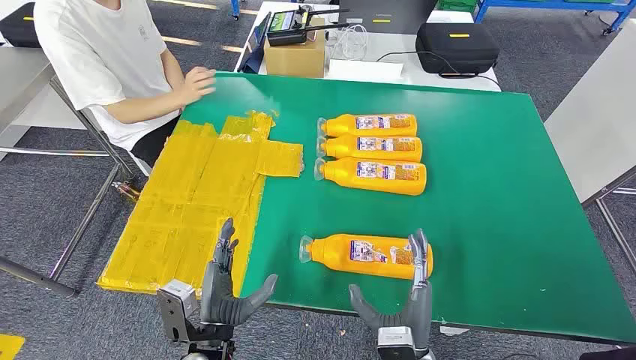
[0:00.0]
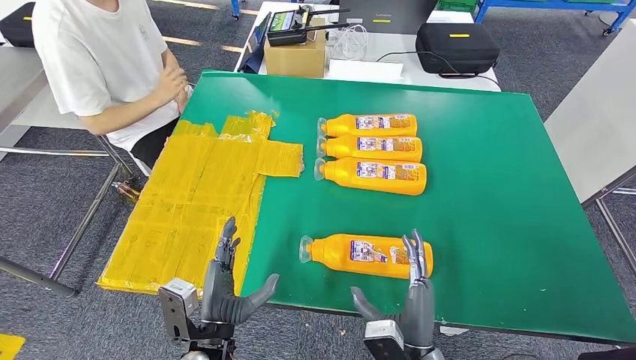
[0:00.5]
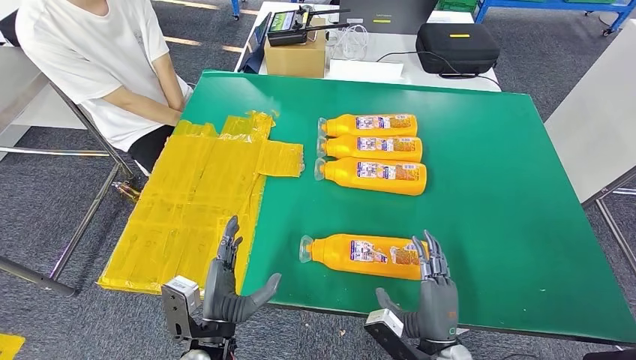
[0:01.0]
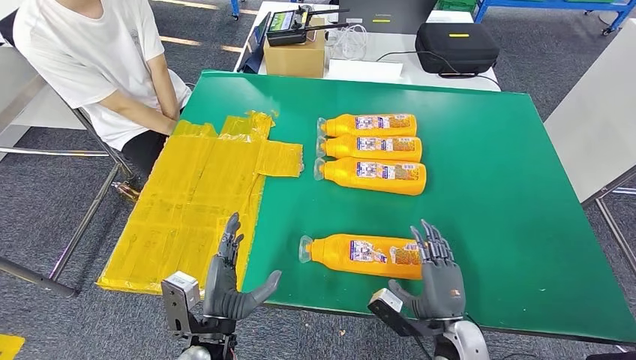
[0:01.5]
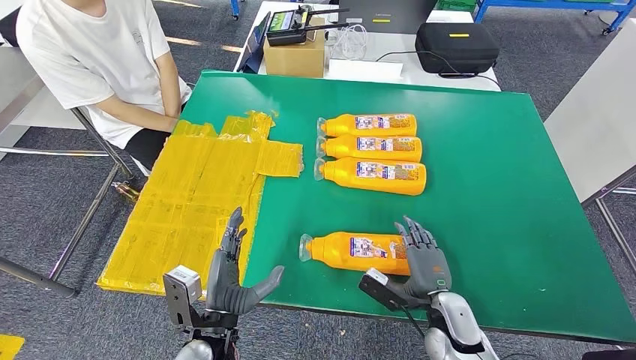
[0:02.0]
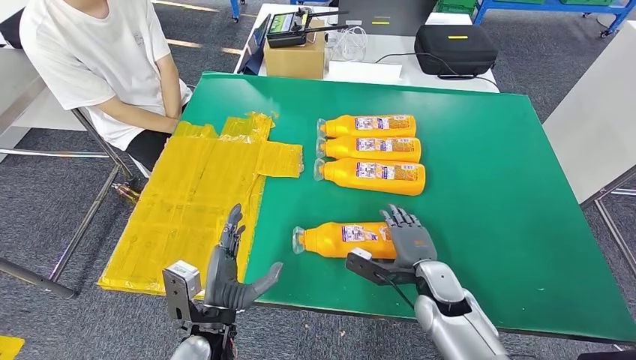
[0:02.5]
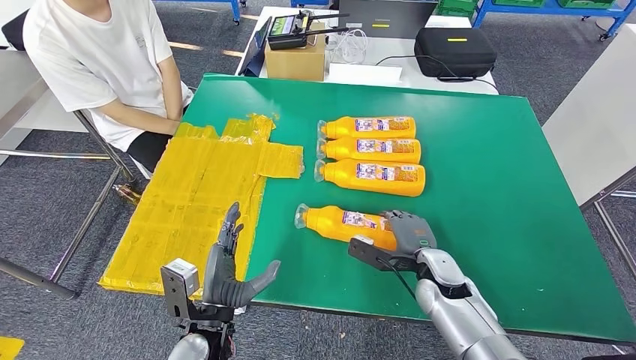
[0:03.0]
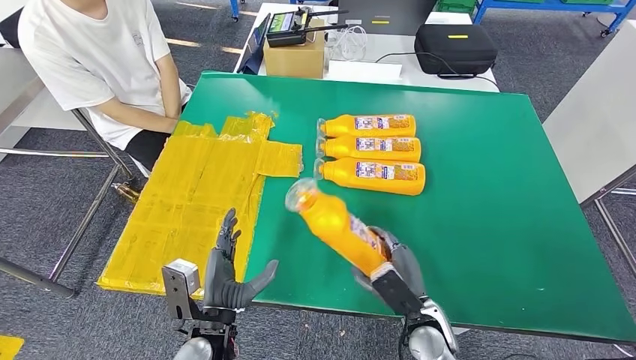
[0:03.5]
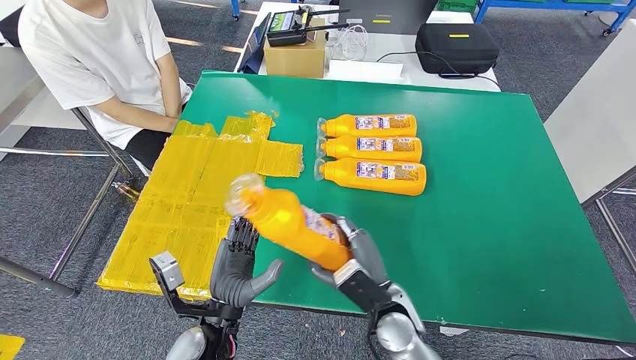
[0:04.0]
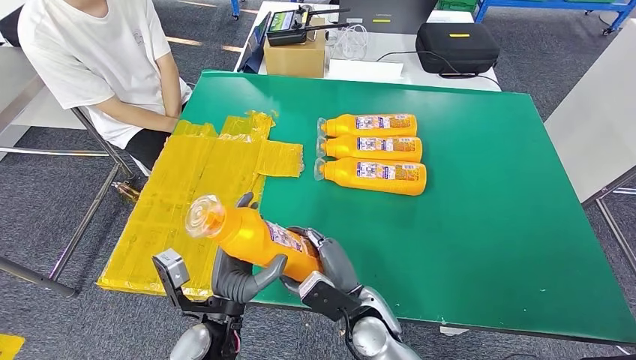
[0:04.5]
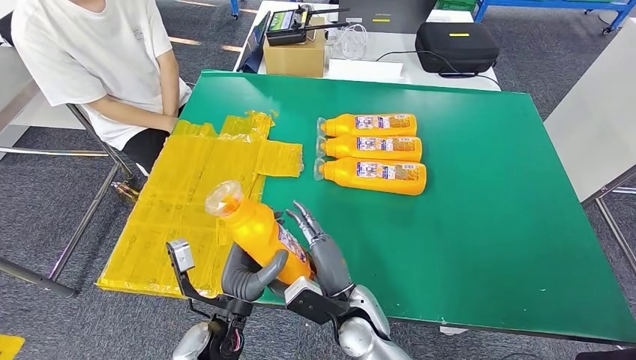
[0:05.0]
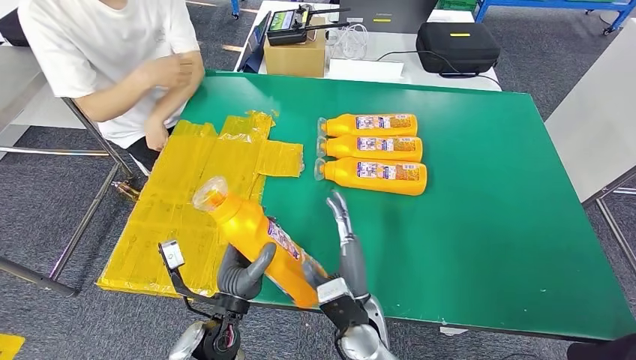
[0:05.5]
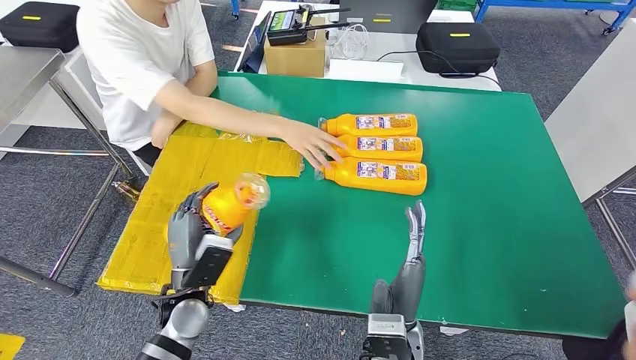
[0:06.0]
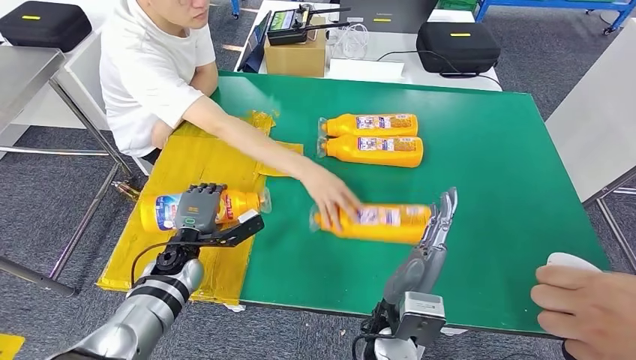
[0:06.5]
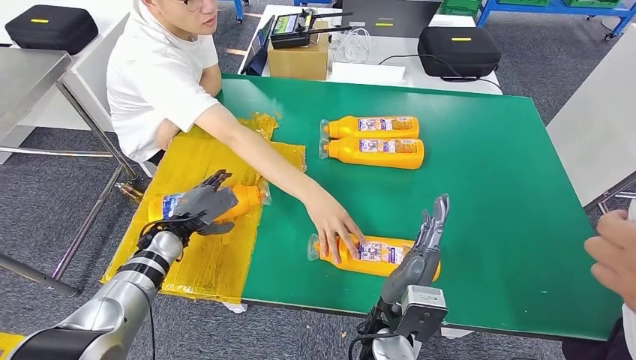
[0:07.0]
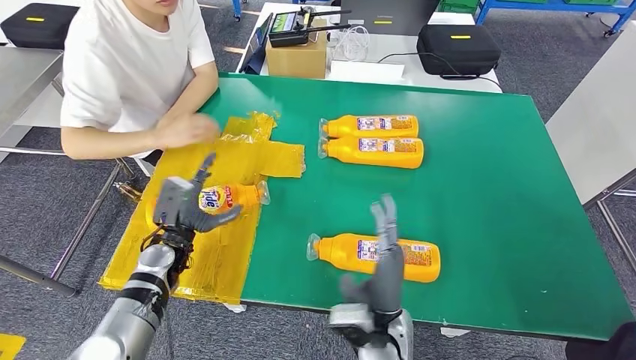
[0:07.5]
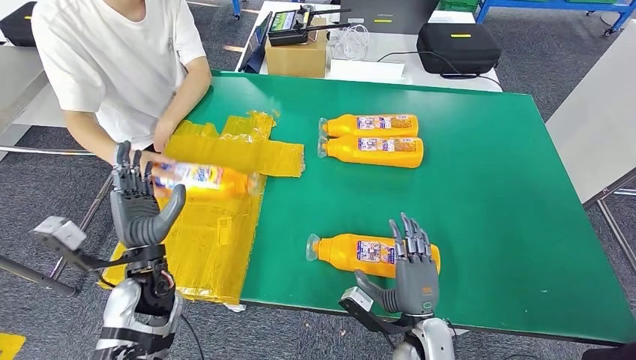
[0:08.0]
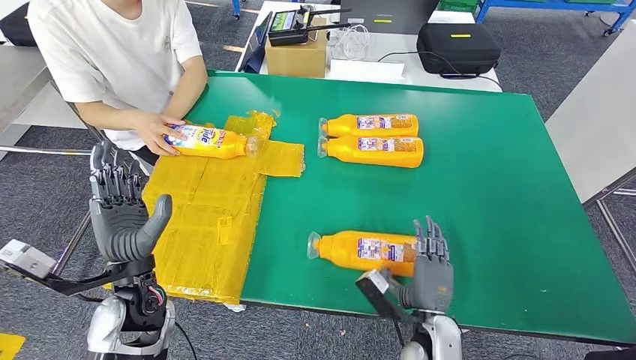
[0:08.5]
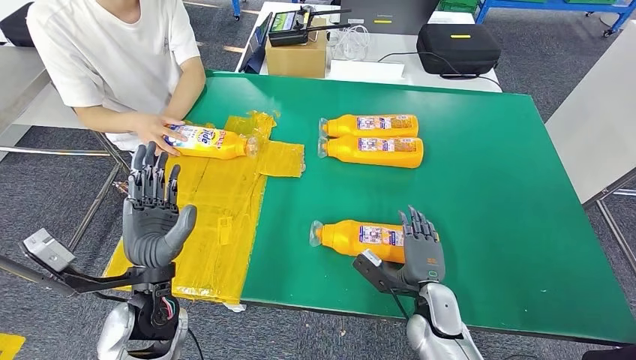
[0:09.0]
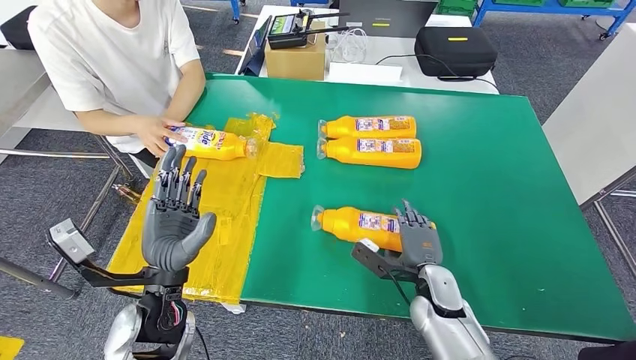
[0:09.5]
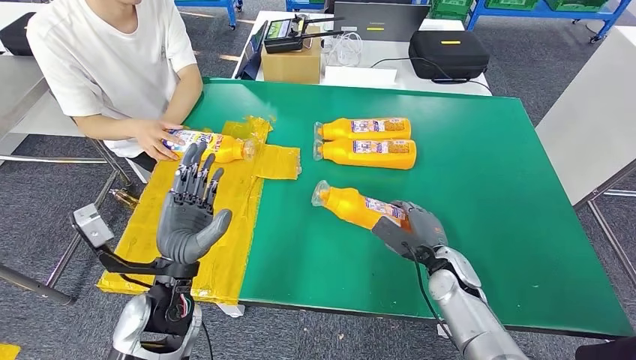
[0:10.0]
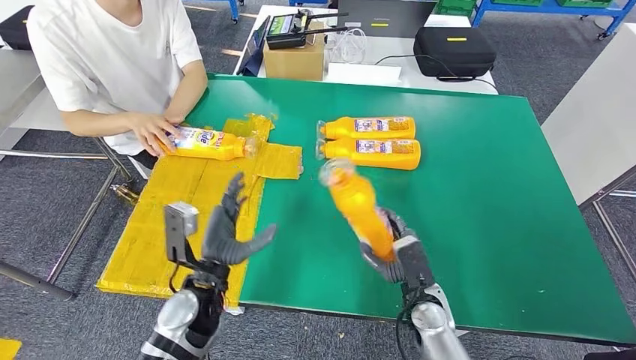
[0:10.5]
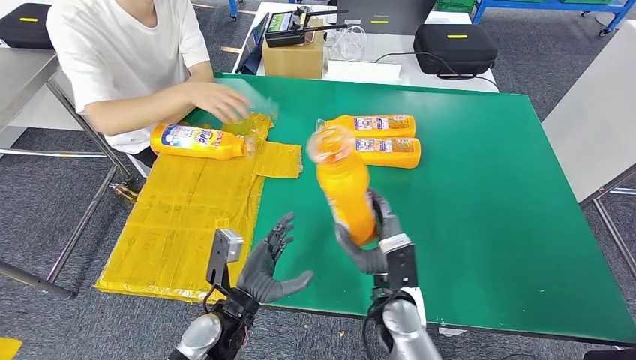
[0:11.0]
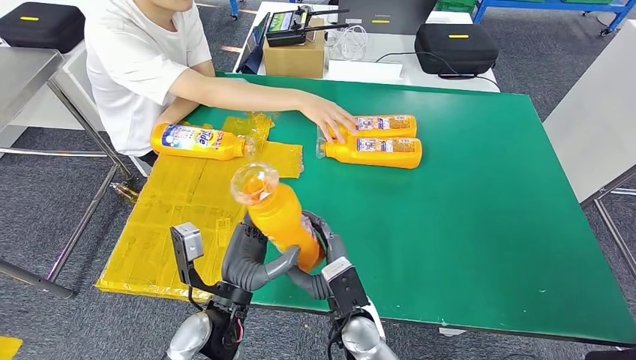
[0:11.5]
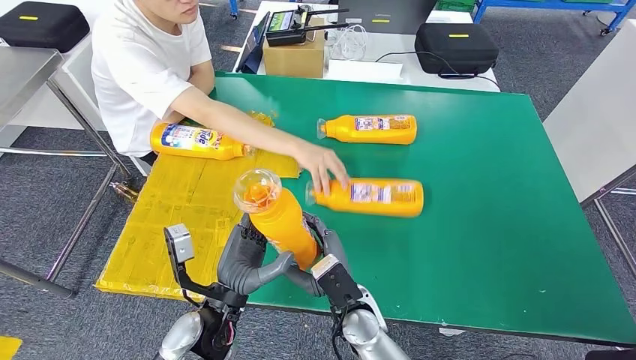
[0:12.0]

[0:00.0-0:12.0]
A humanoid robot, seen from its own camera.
Step, 0:00.0 to 0:03.5: Take the bottle from the table.
Step, 0:04.5 to 0:07.5: Flip the bottle to face forward.
Step, 0:08.5 to 0:10.5: Pick up the bottle from the table.
0:02.0 to 0:04.0: The right hand travels to the left by about 10 cm.

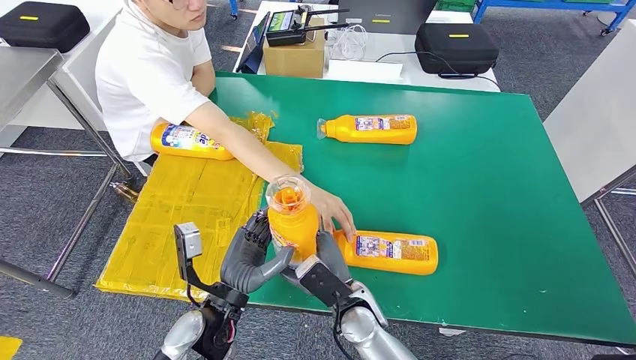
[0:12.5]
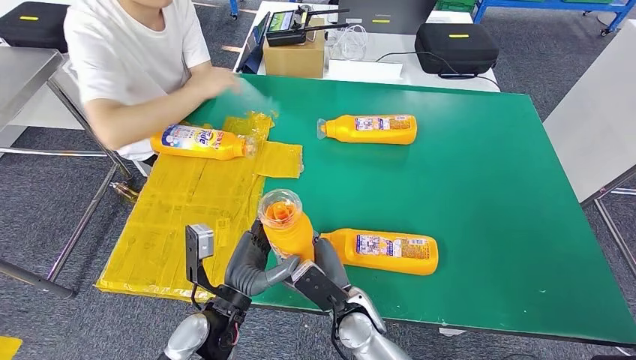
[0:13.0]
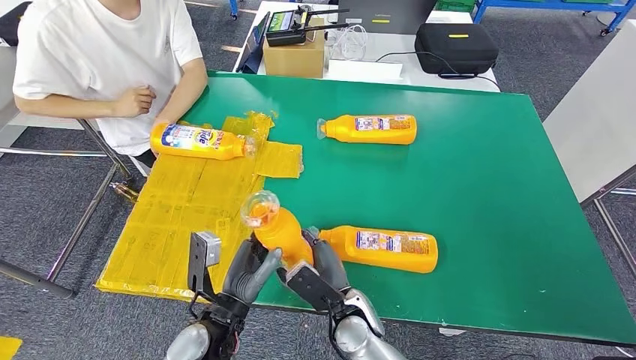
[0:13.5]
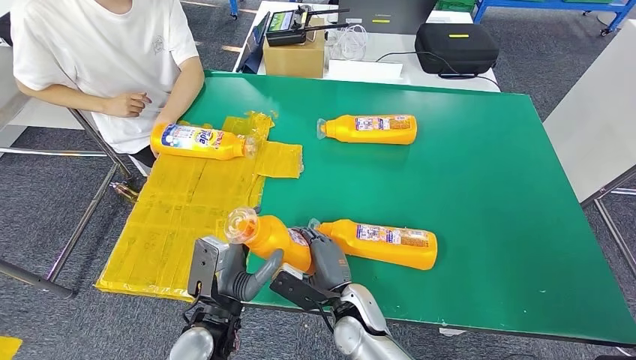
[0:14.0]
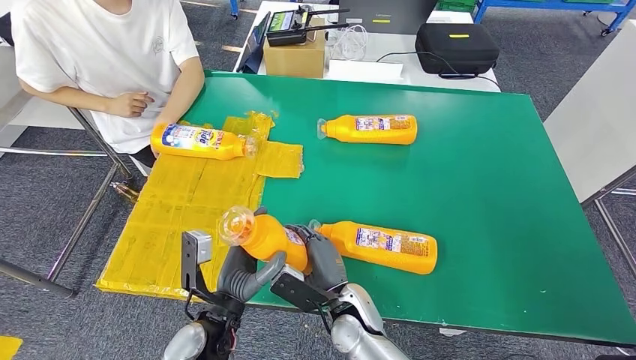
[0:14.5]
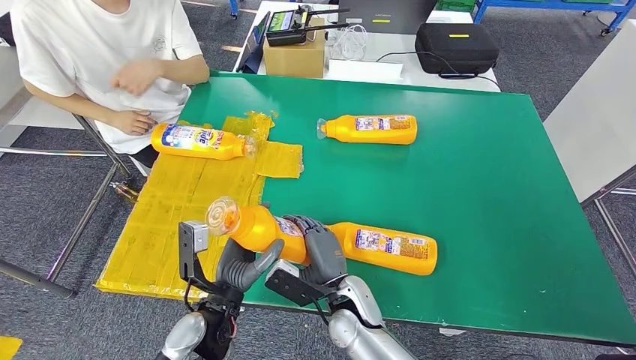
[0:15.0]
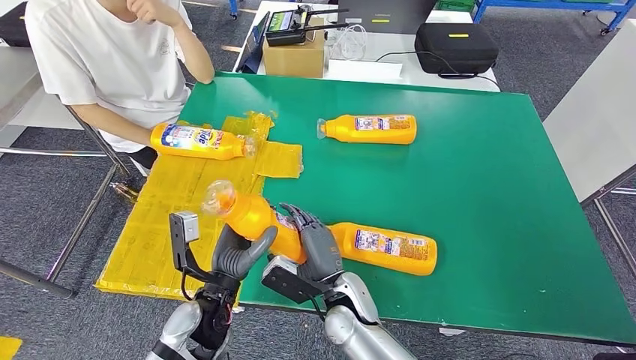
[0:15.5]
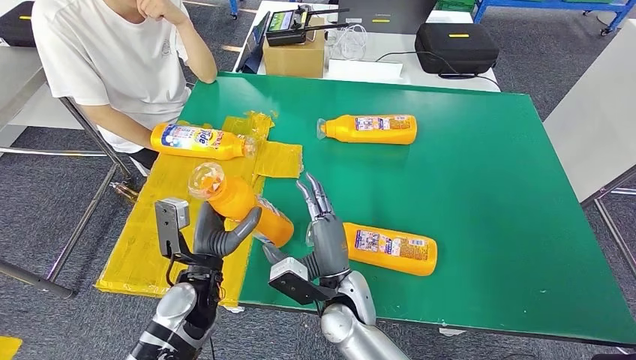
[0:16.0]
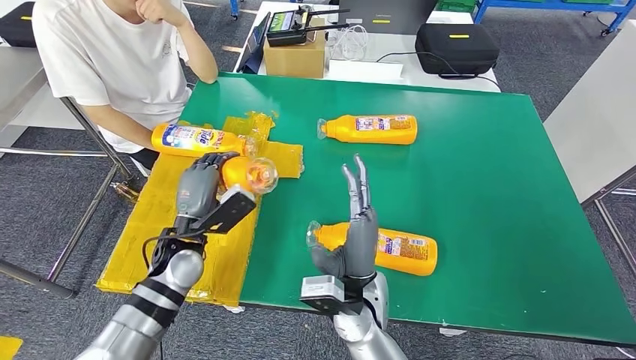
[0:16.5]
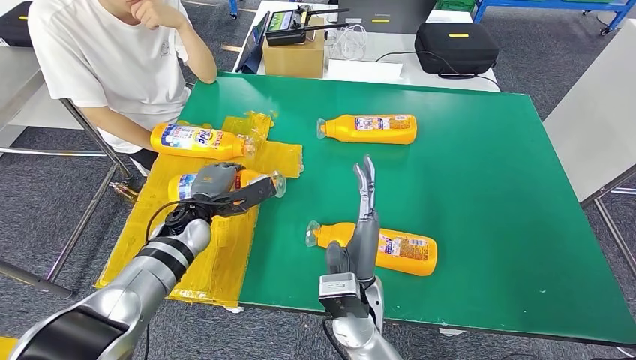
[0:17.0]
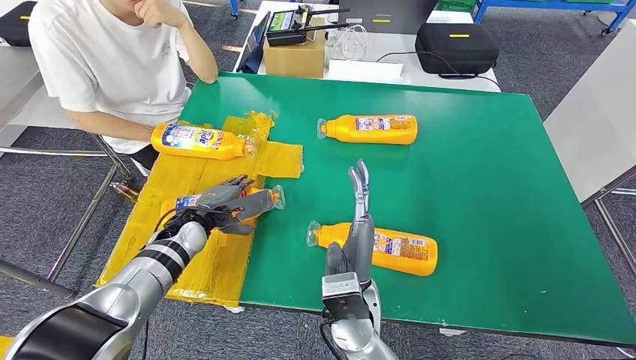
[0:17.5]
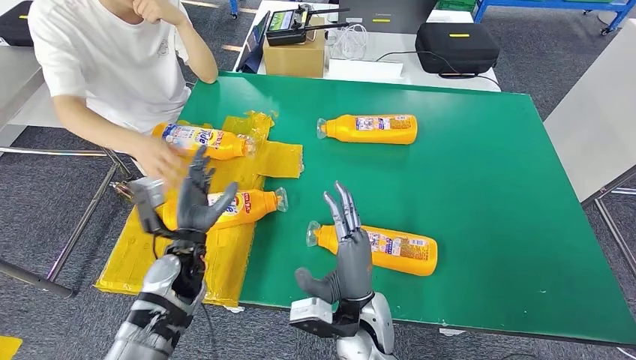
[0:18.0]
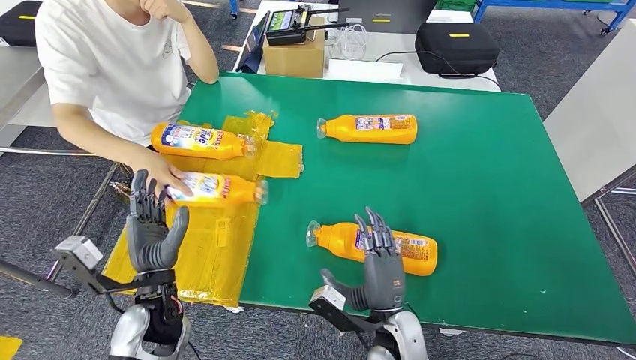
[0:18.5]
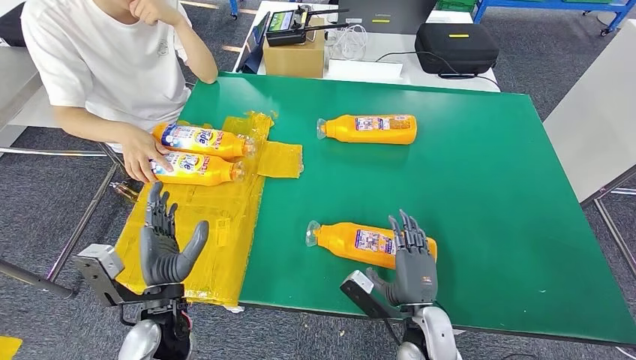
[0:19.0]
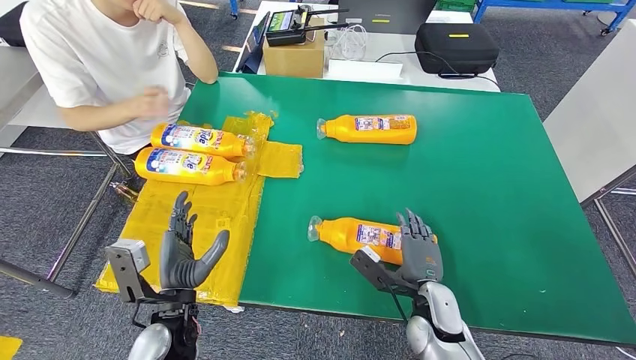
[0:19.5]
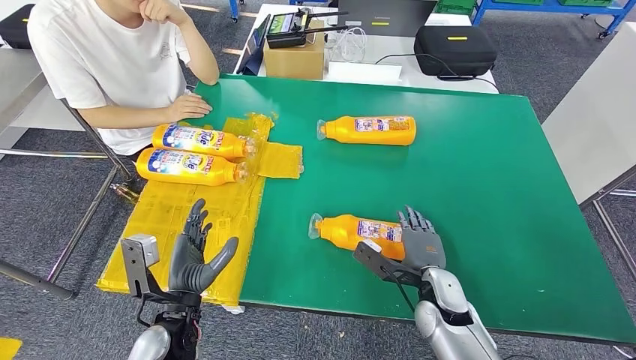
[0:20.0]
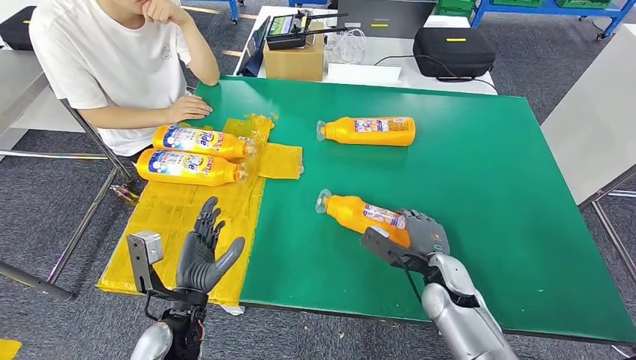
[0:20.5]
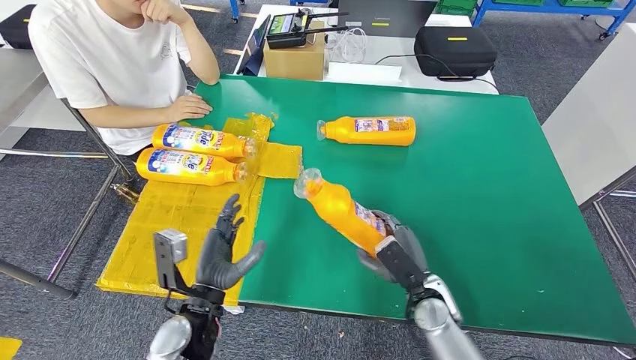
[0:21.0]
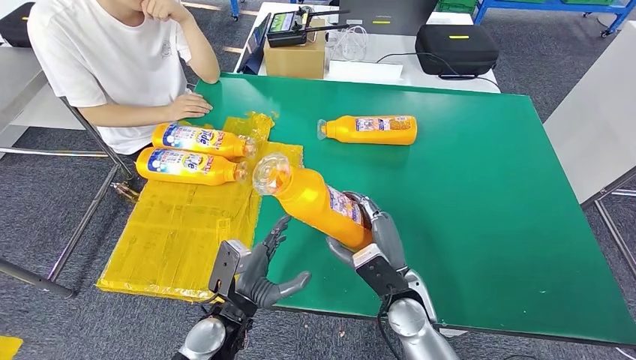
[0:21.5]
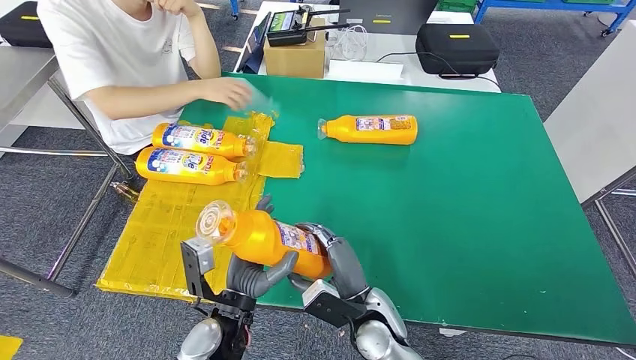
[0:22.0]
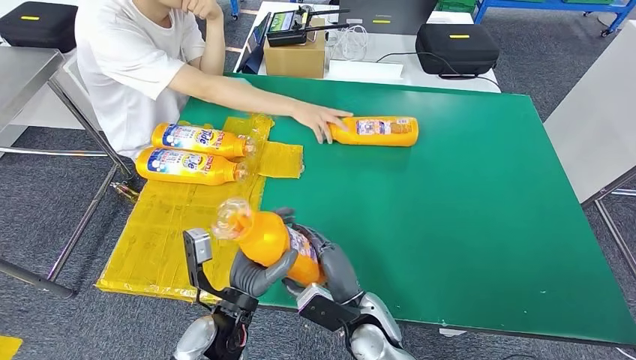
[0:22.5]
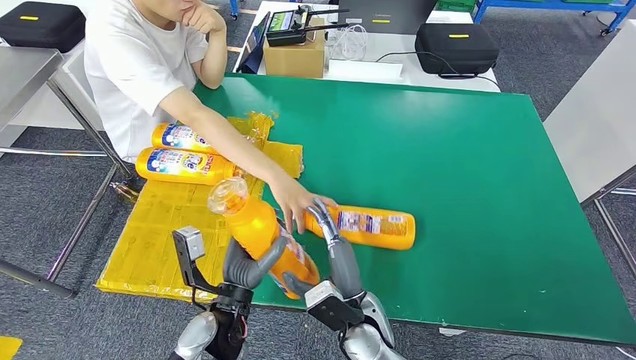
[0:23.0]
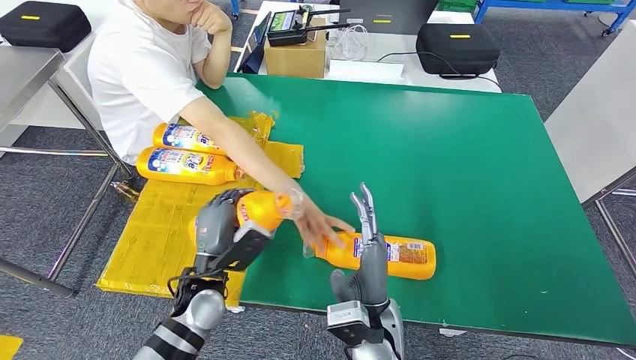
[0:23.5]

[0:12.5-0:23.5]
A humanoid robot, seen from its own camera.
Step, 0:12.5 to 0:18.0: Flip the bottle to face forward.
Step, 0:19.0 to 0:21.0: Pick up the bottle from the table.
0:14.5 to 0:16.0: The left hand heads forward, covering approximately 5 cm.
0:20.0 to 0:21.5: The right hand goes roughly 5 cm to the left, while the left hand goes roughly 5 cm to the right.
